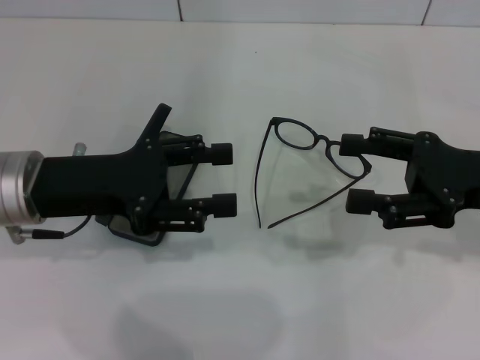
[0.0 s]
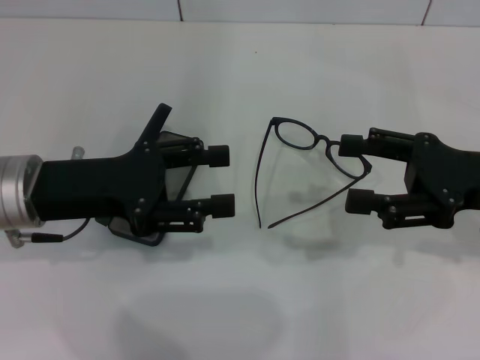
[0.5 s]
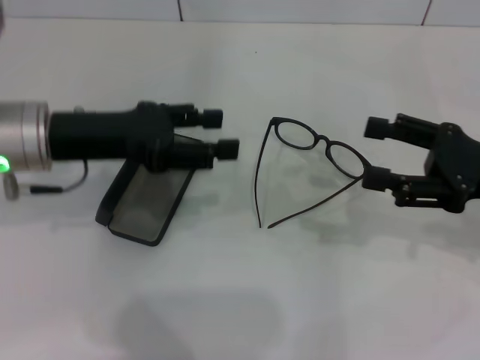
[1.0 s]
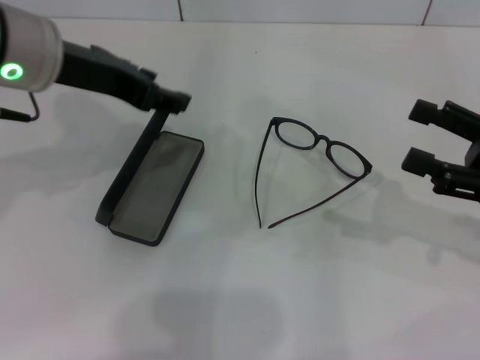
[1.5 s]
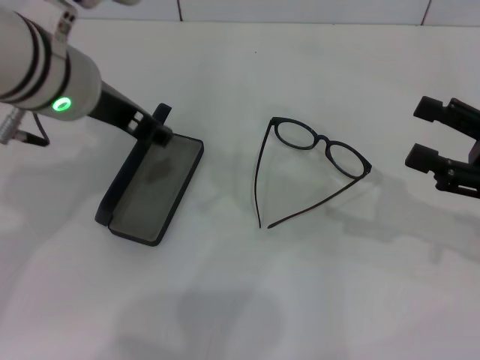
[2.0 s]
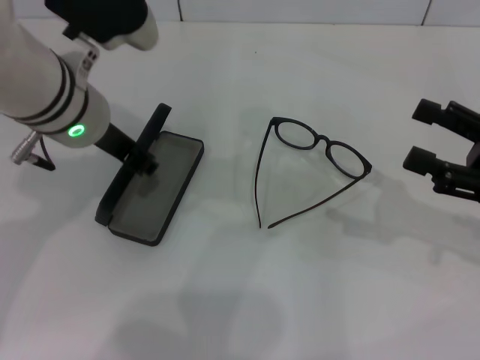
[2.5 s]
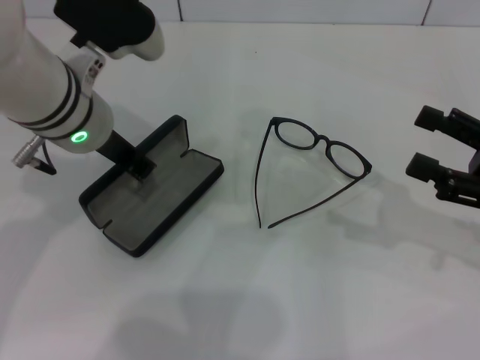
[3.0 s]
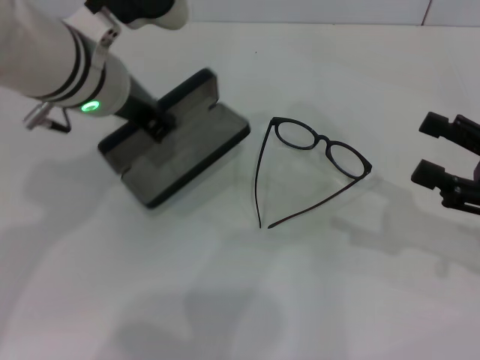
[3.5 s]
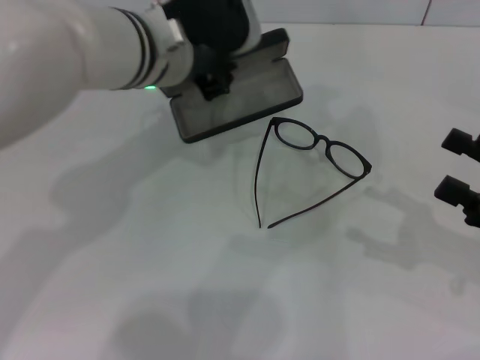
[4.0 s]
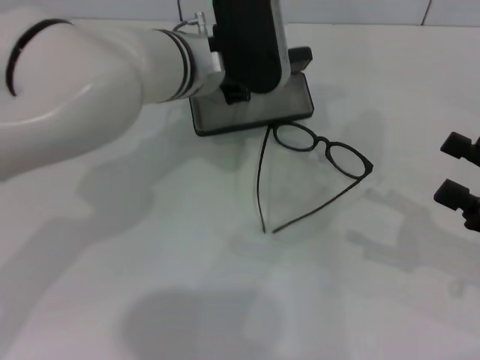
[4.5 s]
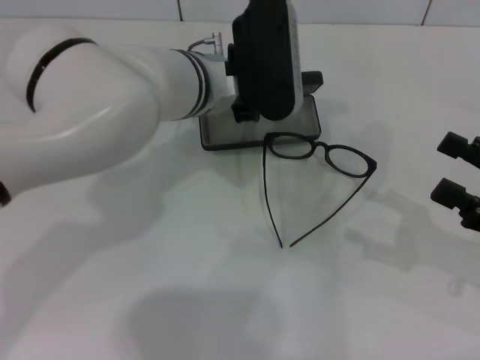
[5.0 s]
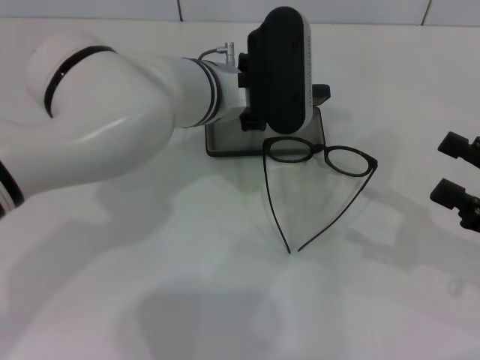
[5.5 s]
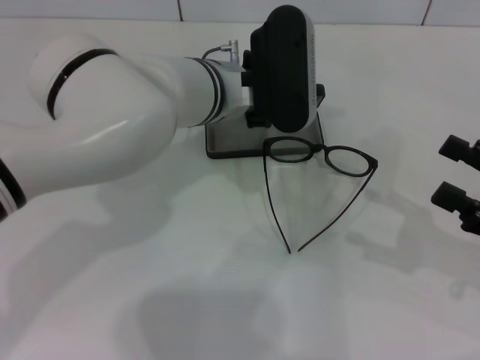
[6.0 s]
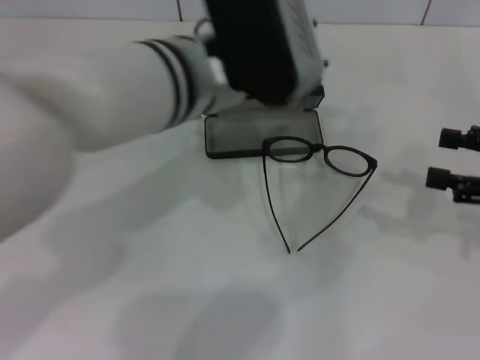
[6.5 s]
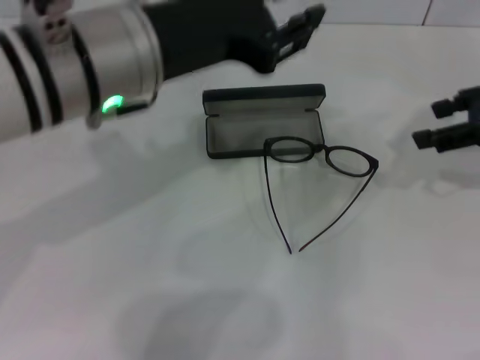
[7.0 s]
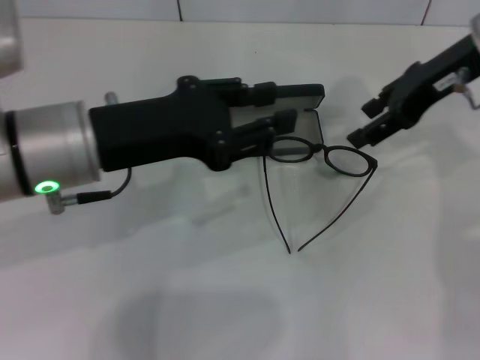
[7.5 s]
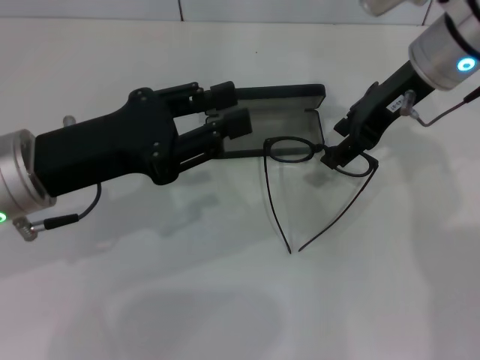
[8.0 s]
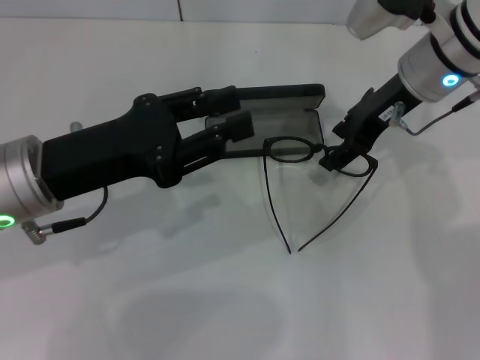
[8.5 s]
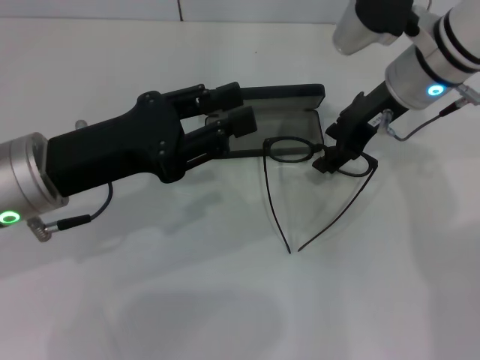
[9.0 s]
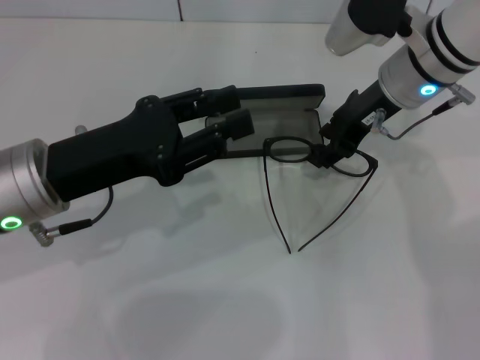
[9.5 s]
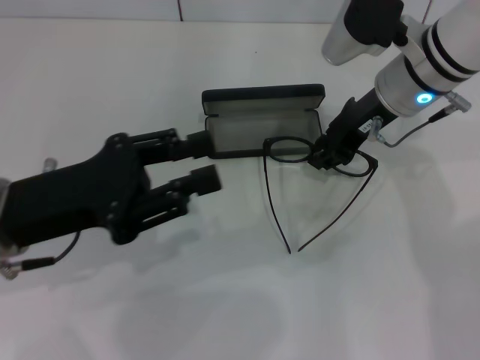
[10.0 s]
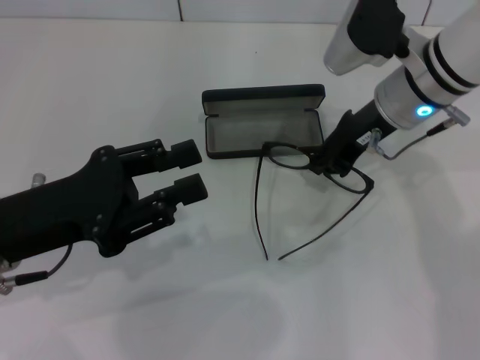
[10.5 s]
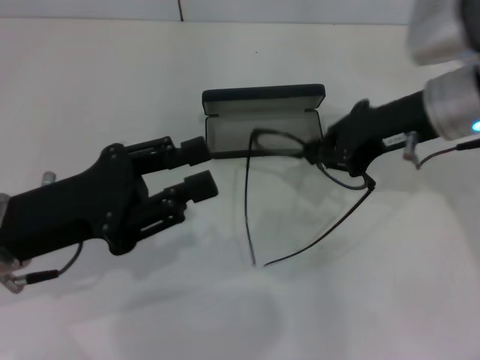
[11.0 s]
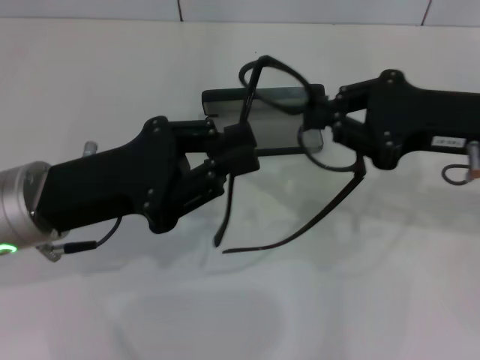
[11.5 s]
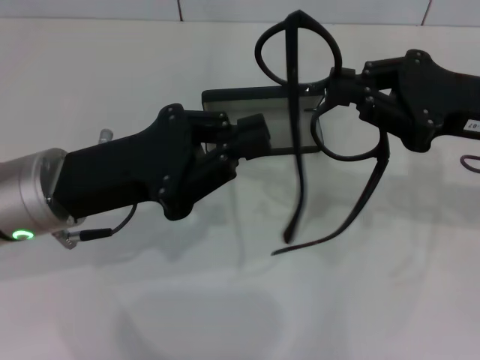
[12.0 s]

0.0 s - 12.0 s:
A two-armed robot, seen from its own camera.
Step, 0.0 s - 2.5 s: Grab the glasses case with your left hand.
Step, 3.0 s - 5.5 s: Place the glasses case in the center of the table with your left hand.
Step, 6.0 s - 10.0 s: Grab the eyeglass frame with your right hand.
0.0 s - 2.0 s: The right gripper changes place by about 5 cm; the left gripper shifts approximately 10 cm upward and to the right.
2.0 s - 4.0 s: The left gripper travels to the right by about 5 cm, and closes.
4.0 s - 6.0 s: The left gripper moves downward, roughly 5 cm.
6.0 s - 8.0 s: The right gripper moves forward, to the left and upward, some 25 cm. Meanwhile the left gripper is displaced to the left and backward by approximately 20 cm.
10.0 s - 12.0 s: The left gripper closes up. The right gripper heads backward and to the right, covering roughly 15 cm, and closes its fingers.

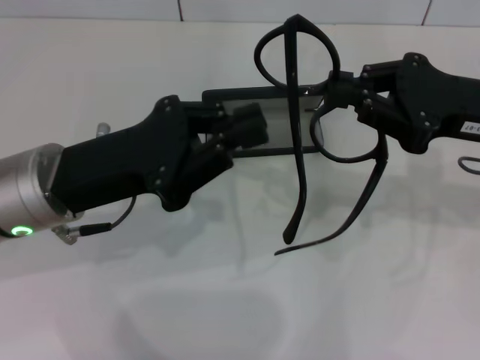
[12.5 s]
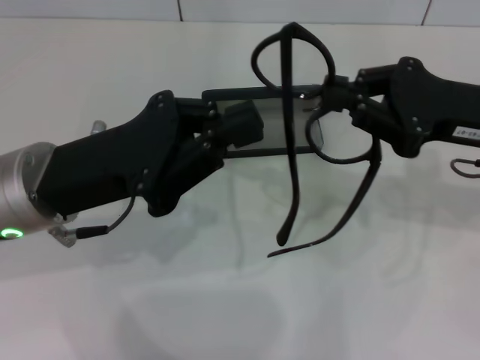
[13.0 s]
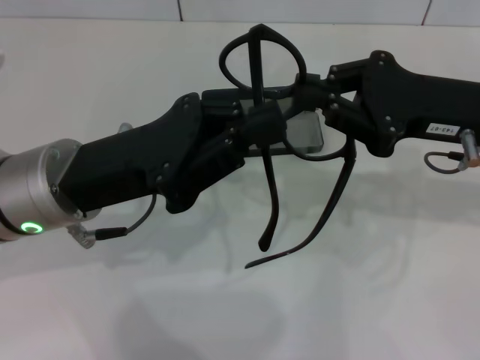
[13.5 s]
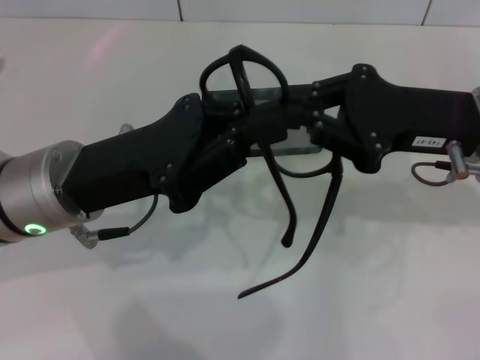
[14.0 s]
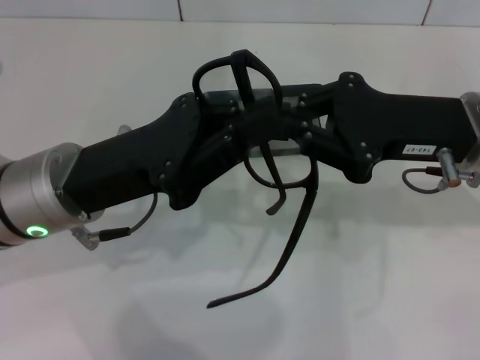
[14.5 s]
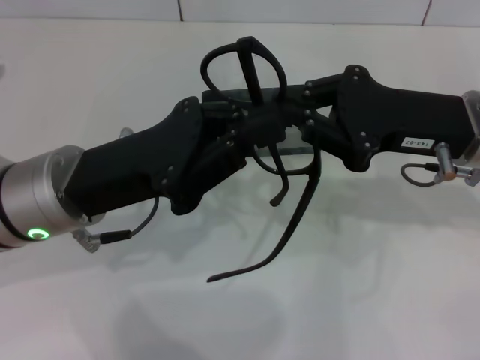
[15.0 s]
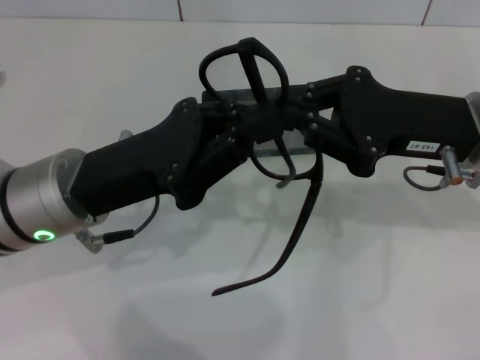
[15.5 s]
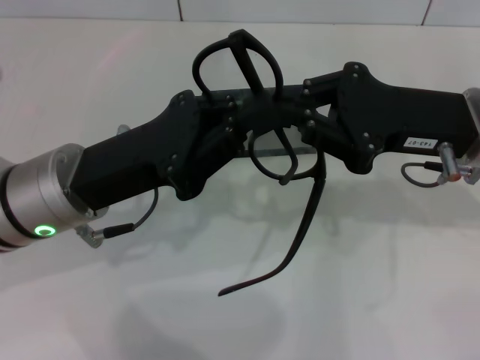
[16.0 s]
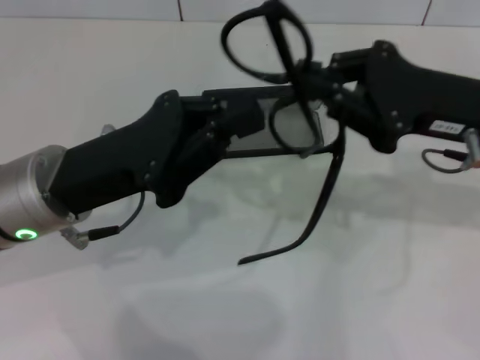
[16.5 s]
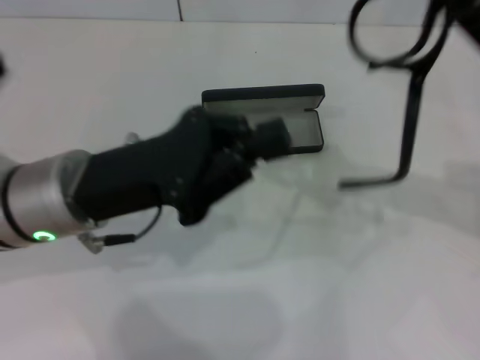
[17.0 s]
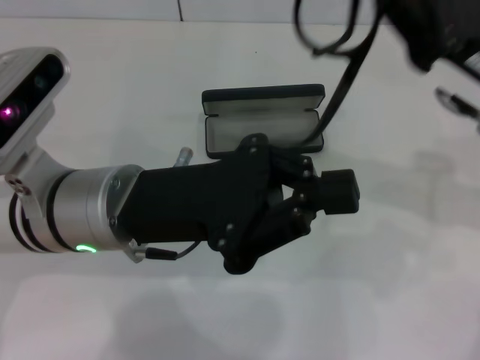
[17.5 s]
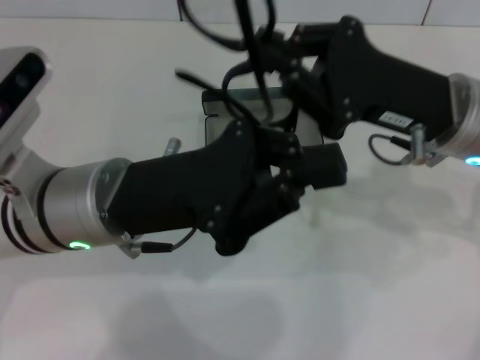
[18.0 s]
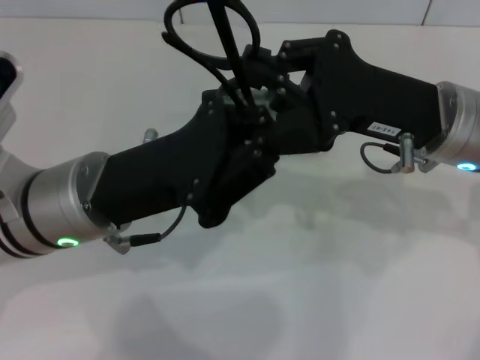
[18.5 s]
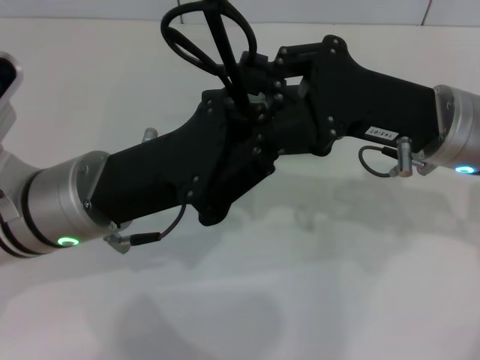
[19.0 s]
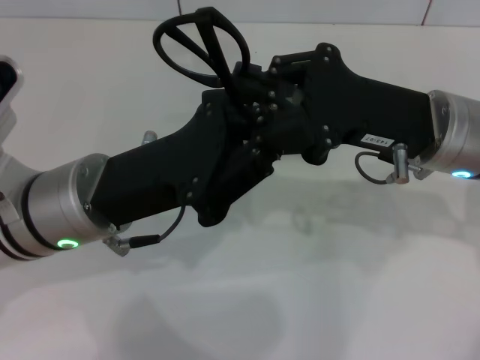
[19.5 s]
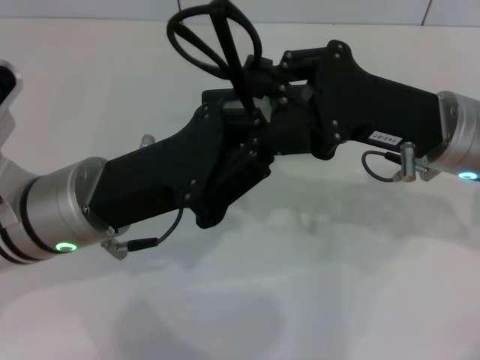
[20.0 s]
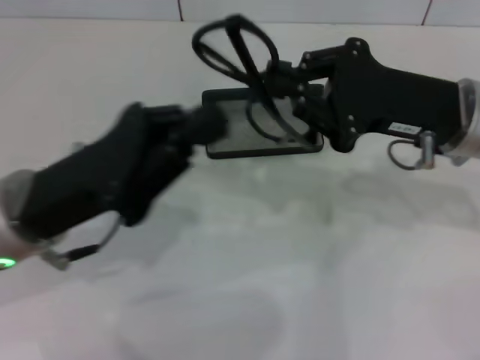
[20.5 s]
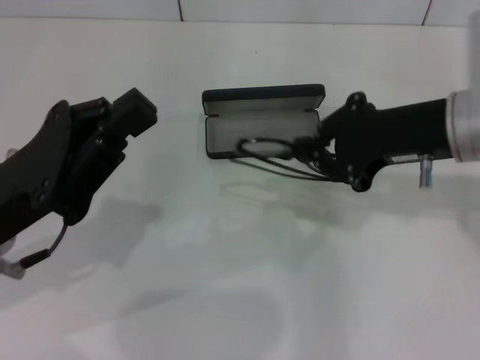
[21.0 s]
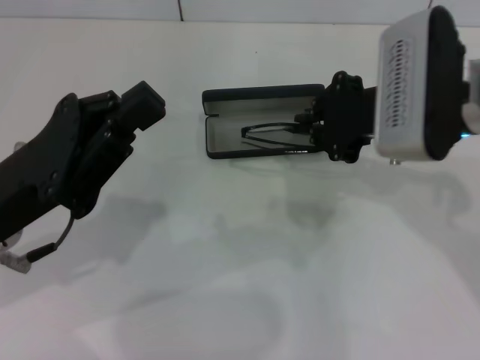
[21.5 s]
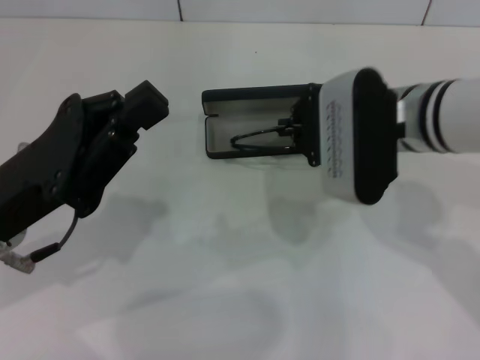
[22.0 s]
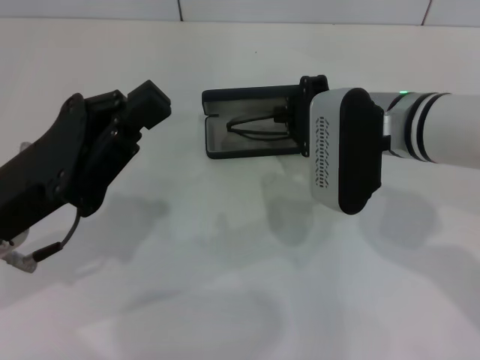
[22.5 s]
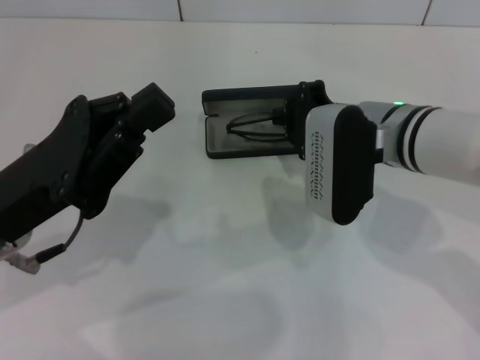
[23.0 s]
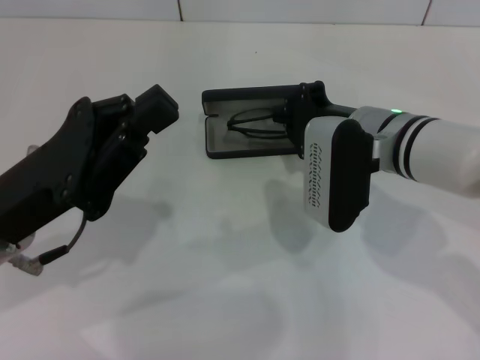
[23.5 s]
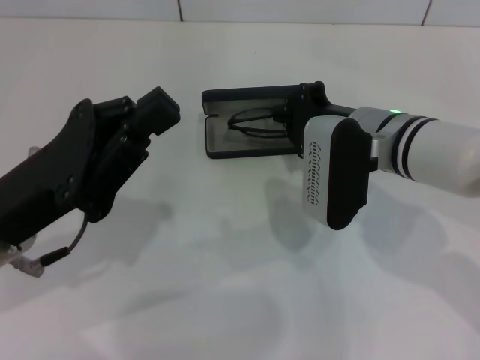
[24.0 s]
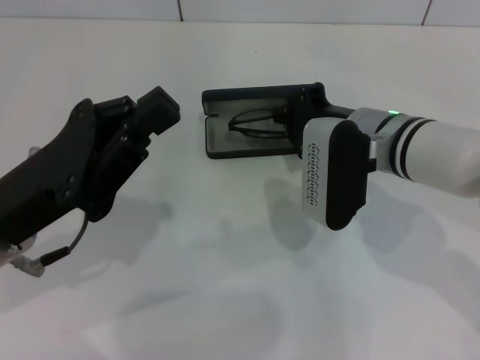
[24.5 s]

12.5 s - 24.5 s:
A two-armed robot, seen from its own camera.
Step, 12.5 s - 19.5 s: Fold the frame with your left hand.
12.5 s - 16.5 s: There are only small adjustments of the grippers.
20.5 s - 22.5 s: The right gripper goes roughly 5 cm to the left.
22.5 s - 24.5 s: The grippers make only small movements.

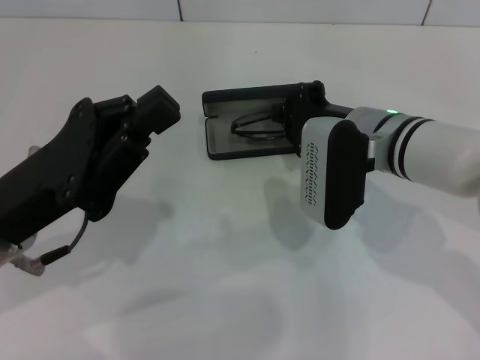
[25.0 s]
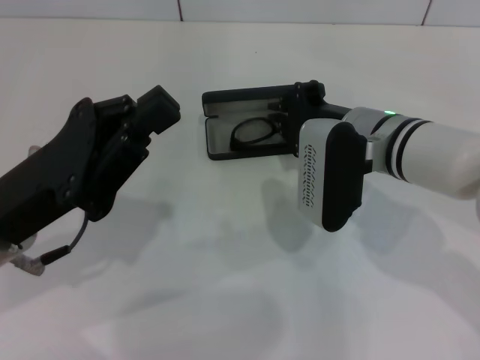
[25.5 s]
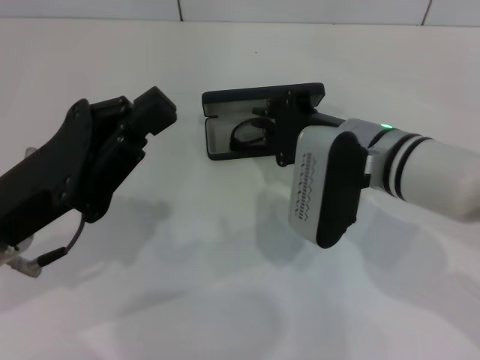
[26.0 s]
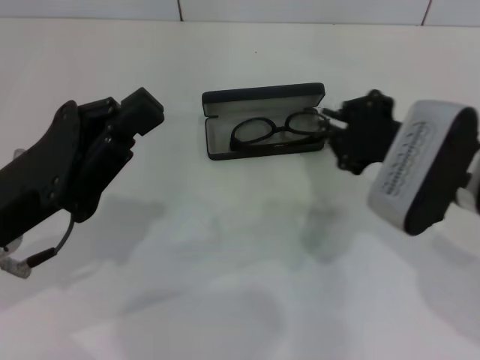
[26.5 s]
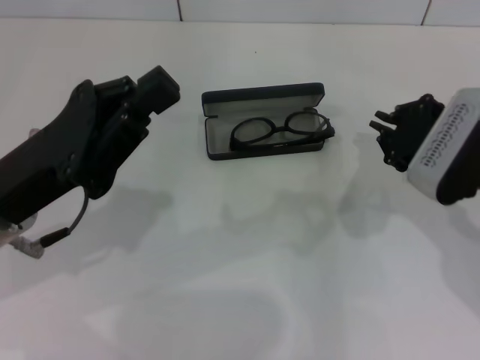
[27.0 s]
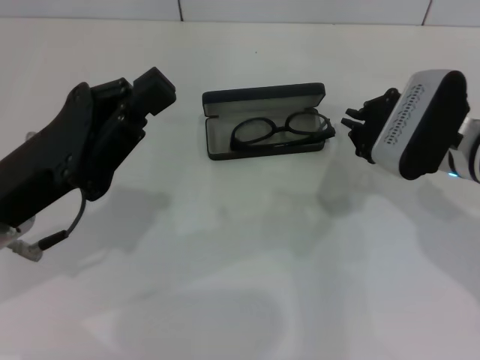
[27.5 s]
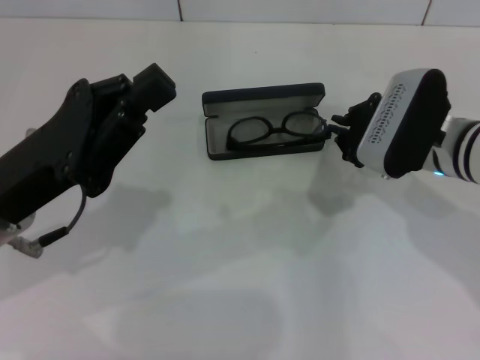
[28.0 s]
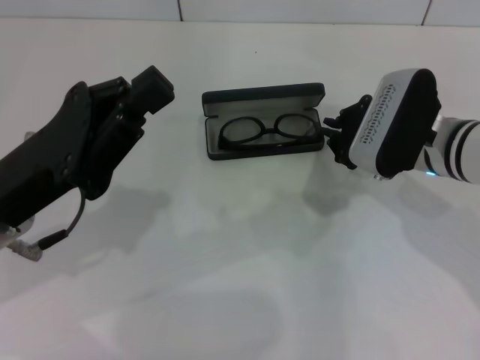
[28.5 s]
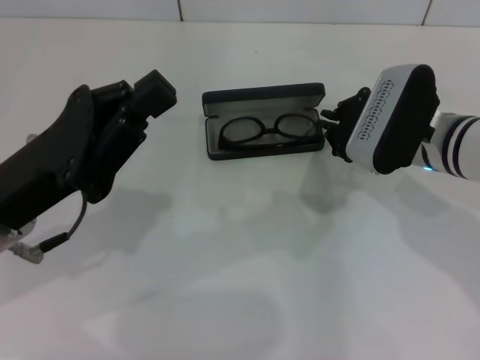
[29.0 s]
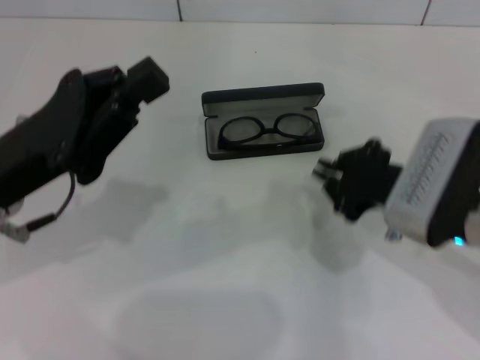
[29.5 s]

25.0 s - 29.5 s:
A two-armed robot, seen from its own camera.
Step, 25.0 s - 28.5 s: Put the glasses into the case with your right hand.
25.0 s - 27.0 s: The right gripper moves to the right, roughly 10 cm.
27.0 s - 29.5 s: The right gripper ends up some 5 cm from where it was.